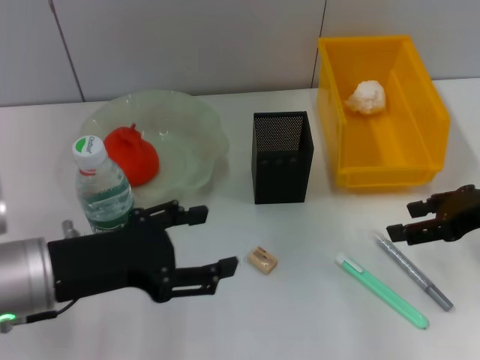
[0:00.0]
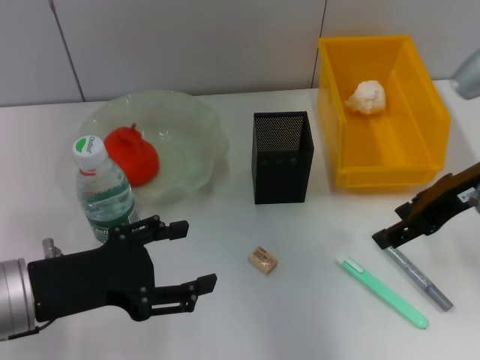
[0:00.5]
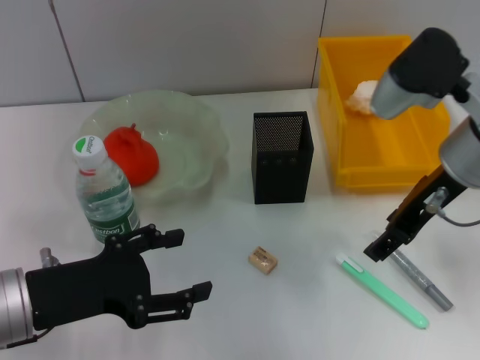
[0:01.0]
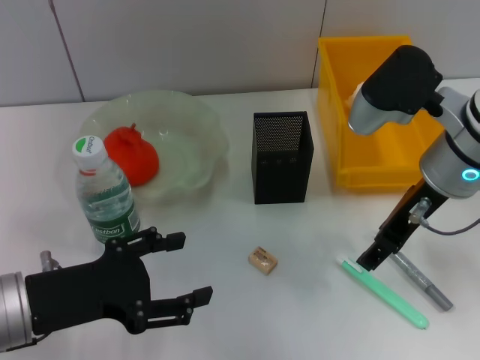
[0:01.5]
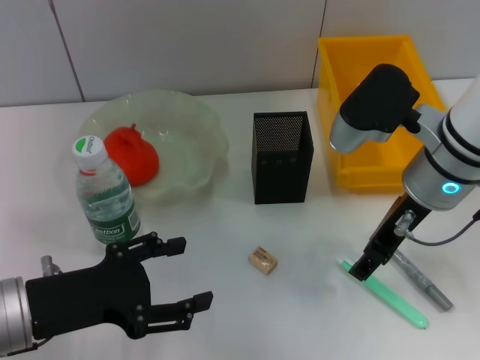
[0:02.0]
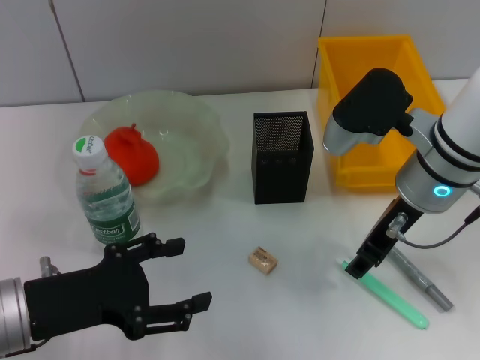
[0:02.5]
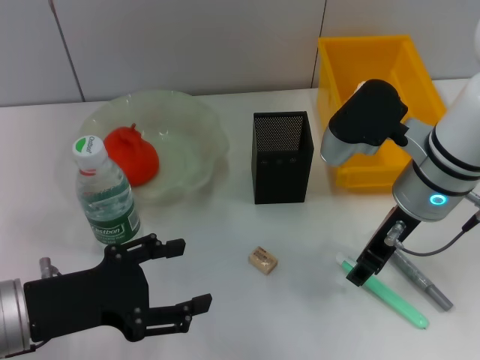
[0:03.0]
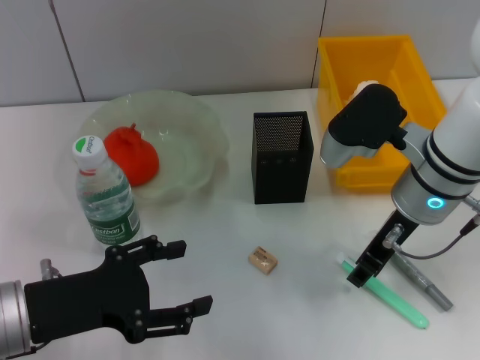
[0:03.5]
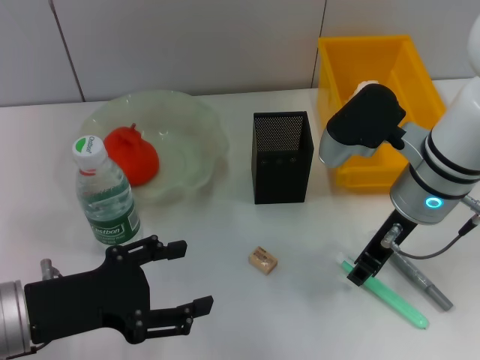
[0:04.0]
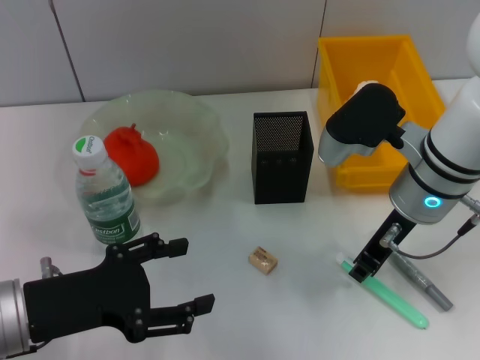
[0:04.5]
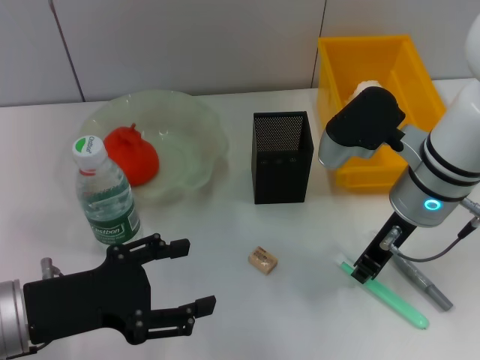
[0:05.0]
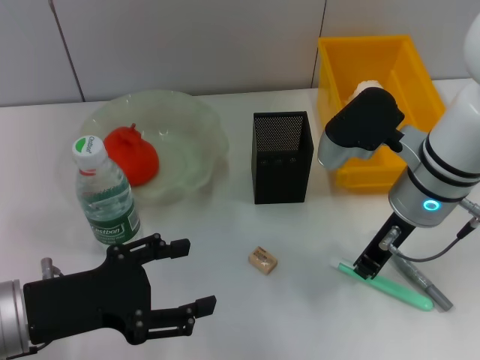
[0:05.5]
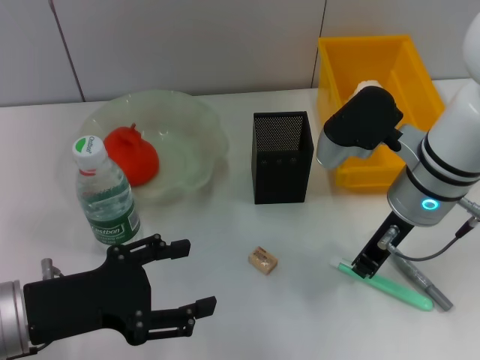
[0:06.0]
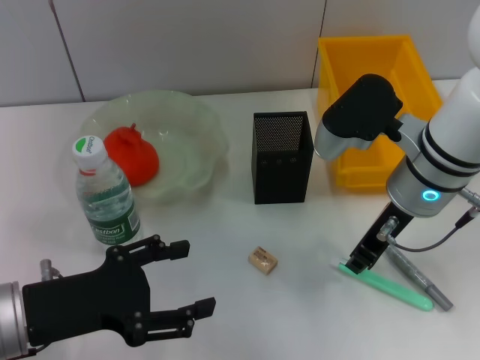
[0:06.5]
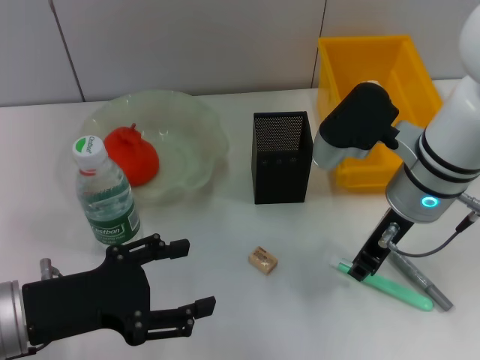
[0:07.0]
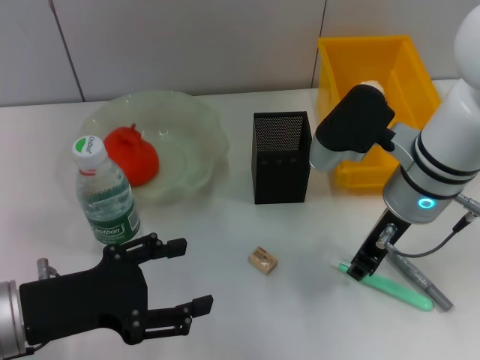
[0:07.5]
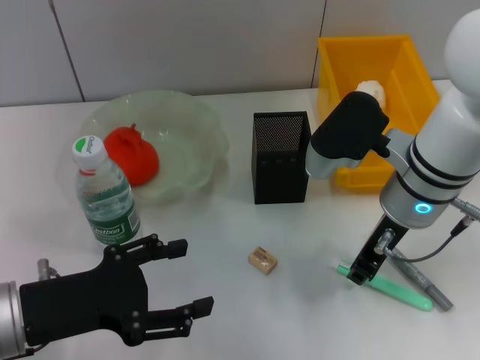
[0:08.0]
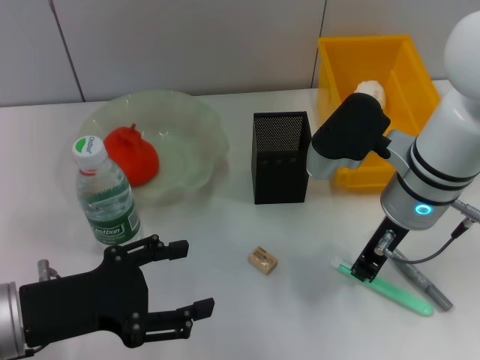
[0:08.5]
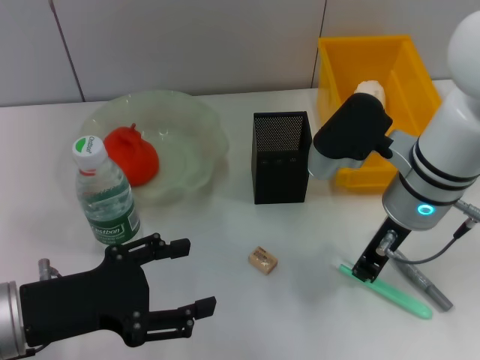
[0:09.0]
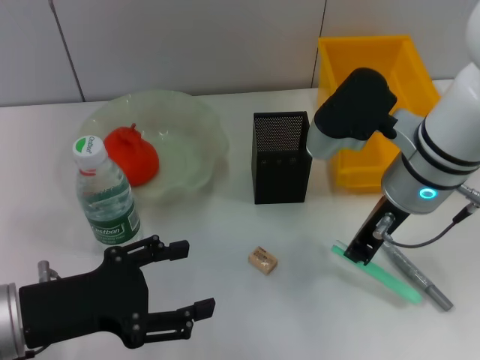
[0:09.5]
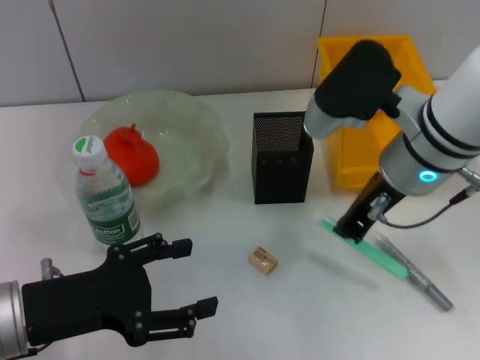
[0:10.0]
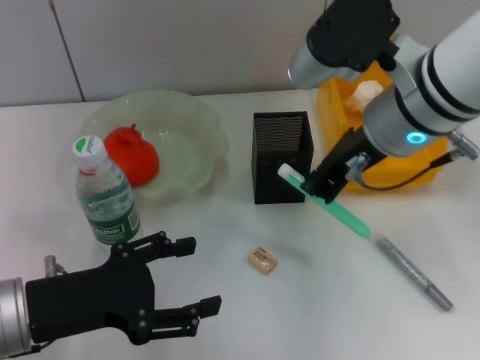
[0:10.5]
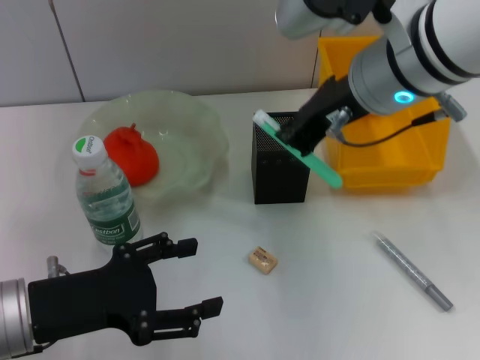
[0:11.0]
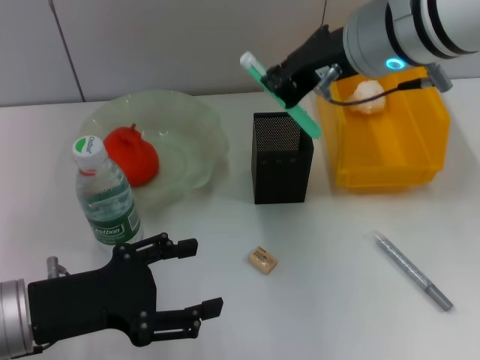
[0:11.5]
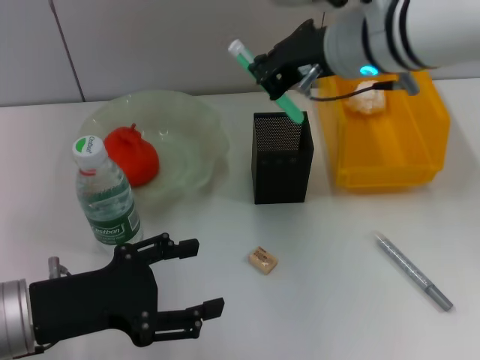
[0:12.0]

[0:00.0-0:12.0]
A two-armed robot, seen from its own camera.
Step, 0:00.0 to 0:08.5: Grab the blue utility knife with the right hand.
0:00.0 to 0:02.0: The right gripper moves to the left, some 15 cm.
0:02.0 to 0:04.0: The right gripper closes its fingers.
0:04.0 to 0:06.0: The right gripper closes its fingers.
0:06.0 to 0:10.0: The grippers make only small movements.
0:10.0 to 0:12.0: The right gripper goes some 5 cm upward.

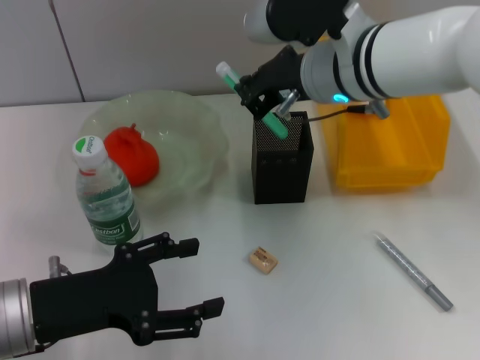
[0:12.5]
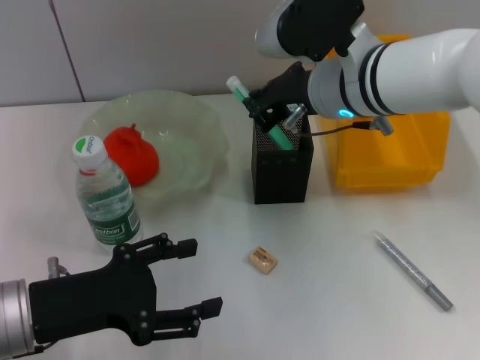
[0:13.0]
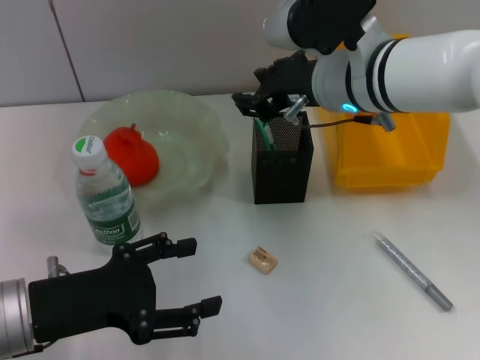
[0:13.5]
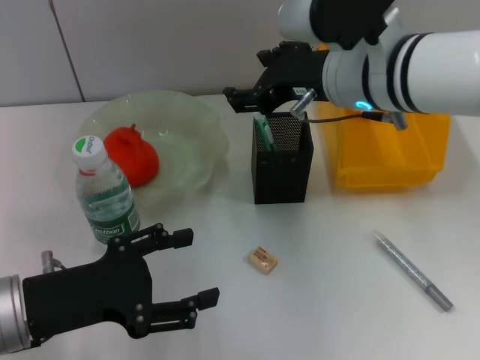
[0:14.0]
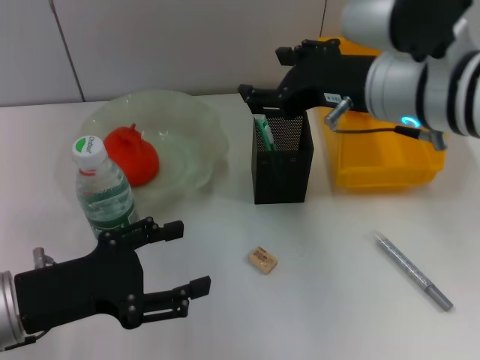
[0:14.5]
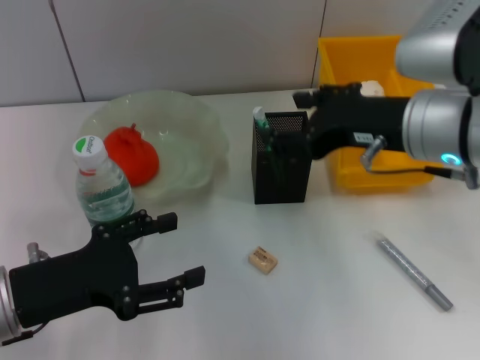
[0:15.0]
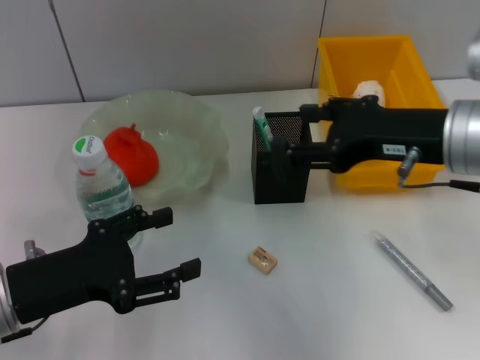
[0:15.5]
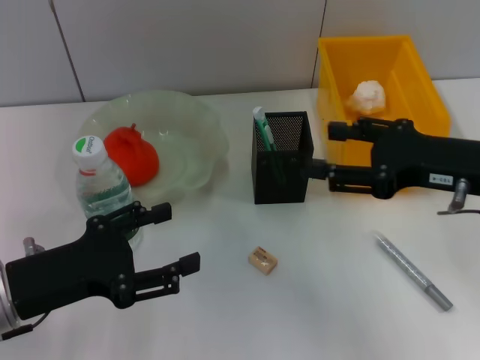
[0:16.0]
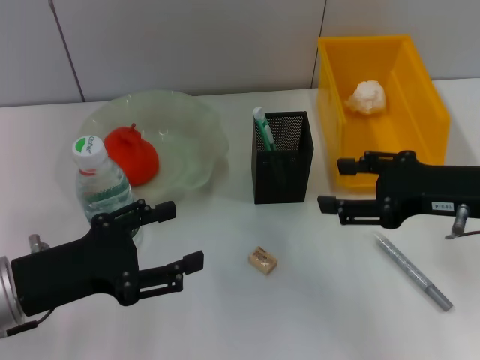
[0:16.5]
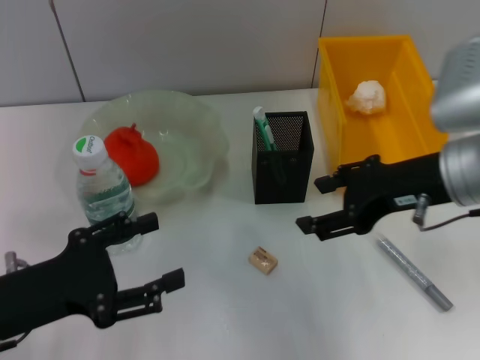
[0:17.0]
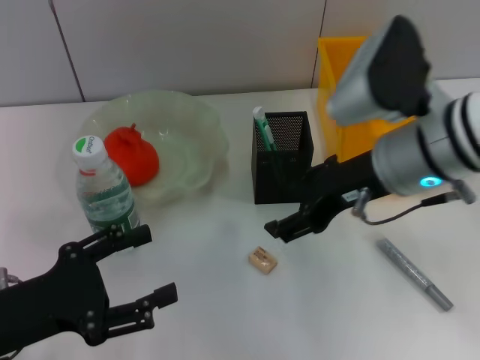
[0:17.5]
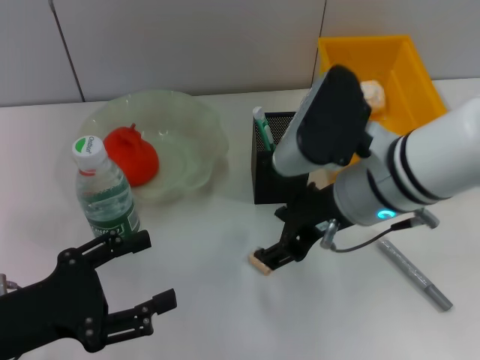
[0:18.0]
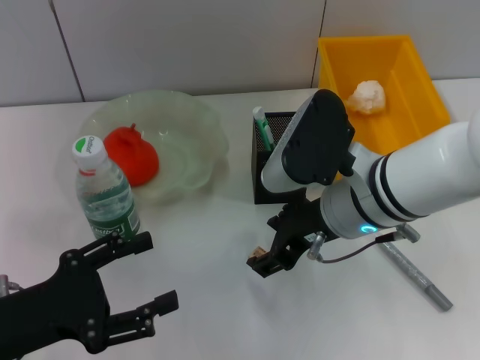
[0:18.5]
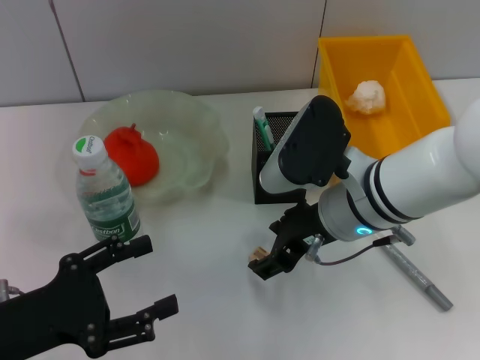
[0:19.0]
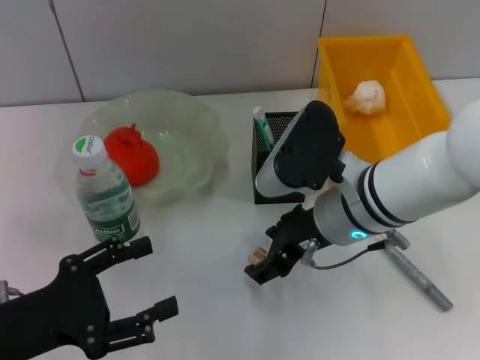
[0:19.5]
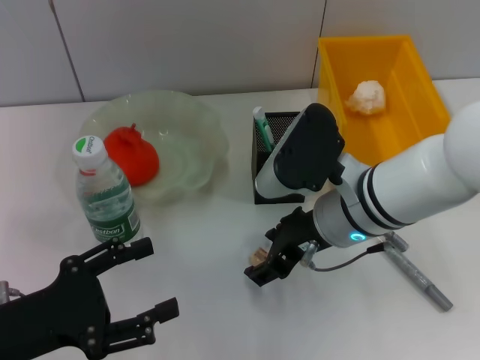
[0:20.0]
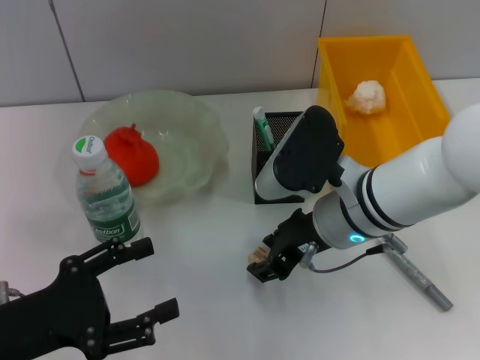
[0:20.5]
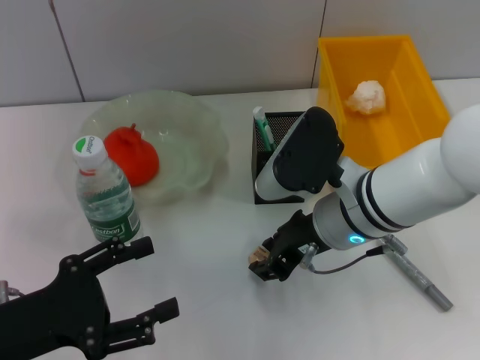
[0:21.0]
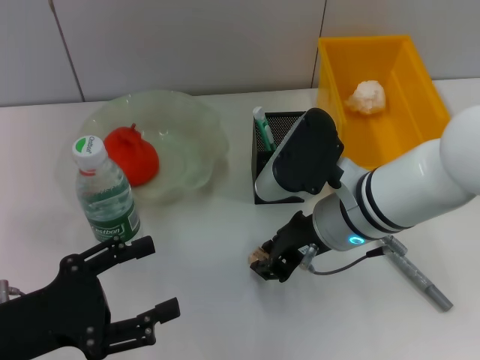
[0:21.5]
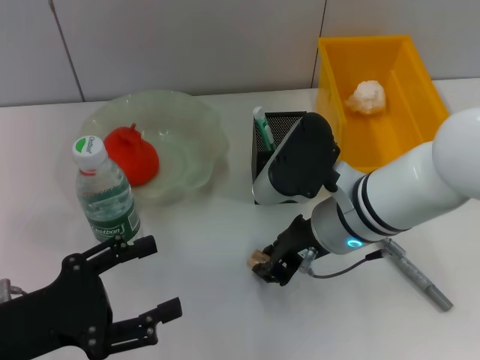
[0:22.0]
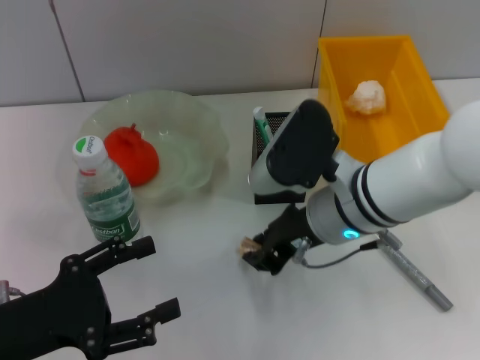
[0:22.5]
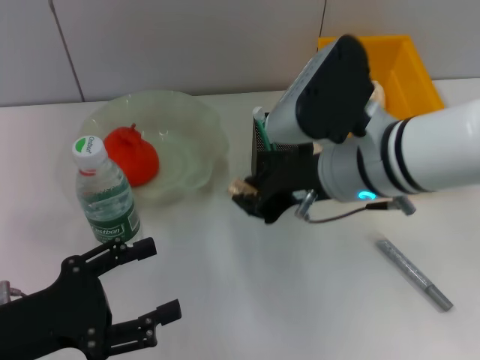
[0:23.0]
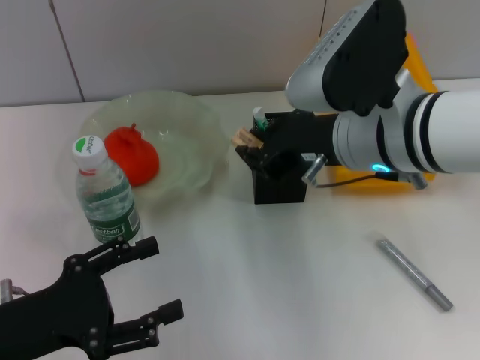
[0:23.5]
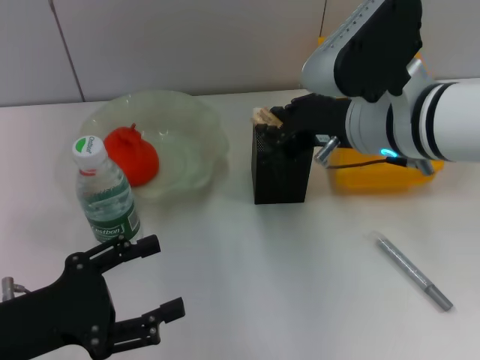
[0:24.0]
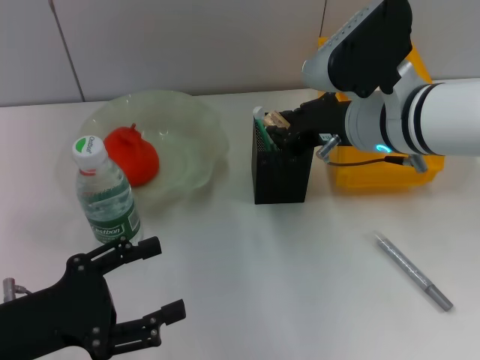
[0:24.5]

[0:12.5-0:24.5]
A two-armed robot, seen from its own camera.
Step, 0:13.5 to 0:22.0: Grab the eraser with the right hand.
0:12.5 to 0:14.5: The right gripper goes about 5 cm backward, and opens.
0:14.5 to 0:16.5: The right gripper moves to the right and downward, about 15 cm.
0:16.5 to 0:18.5: The right gripper is displaced to the left by some 15 cm.
0:18.5 to 0:20.5: There are only small adjustments of the grippers.
0:20.5 to 0:22.5: The right gripper closes its fingers.
0:22.5 to 0:24.5: The right gripper changes place by roughly 5 cm.

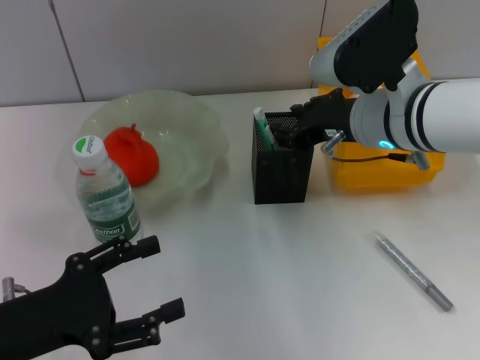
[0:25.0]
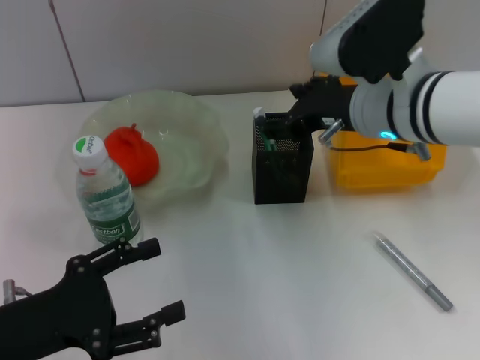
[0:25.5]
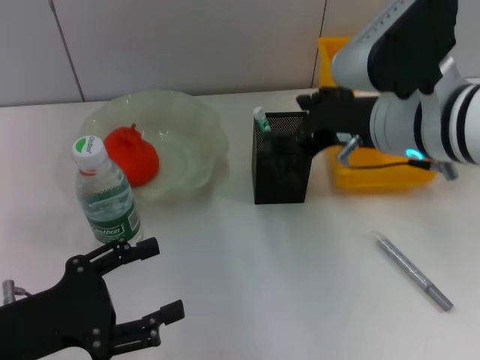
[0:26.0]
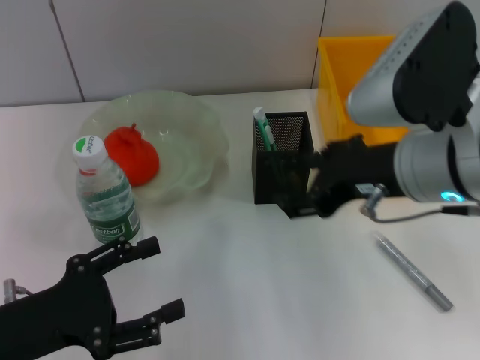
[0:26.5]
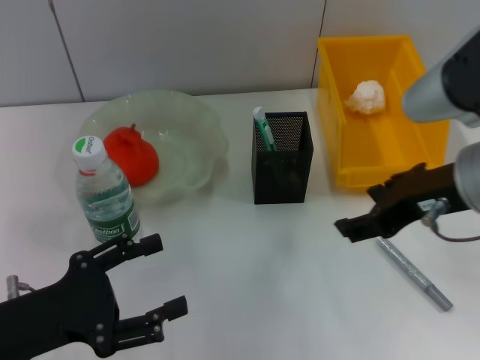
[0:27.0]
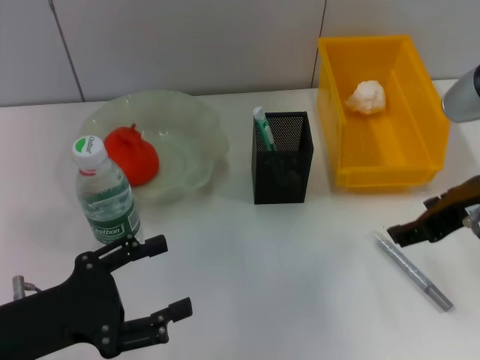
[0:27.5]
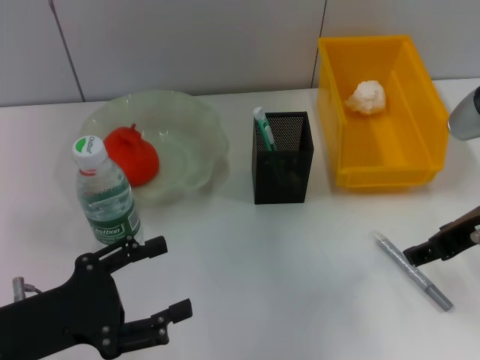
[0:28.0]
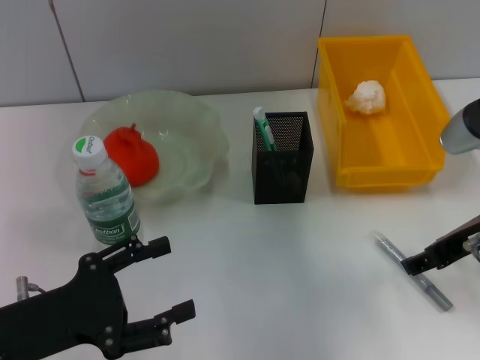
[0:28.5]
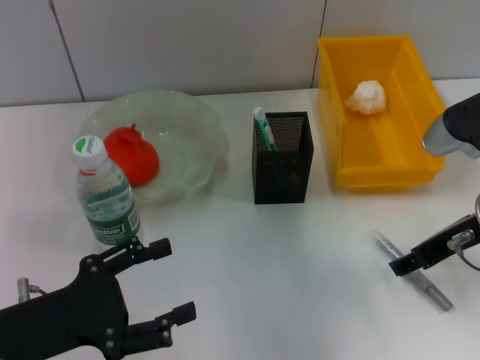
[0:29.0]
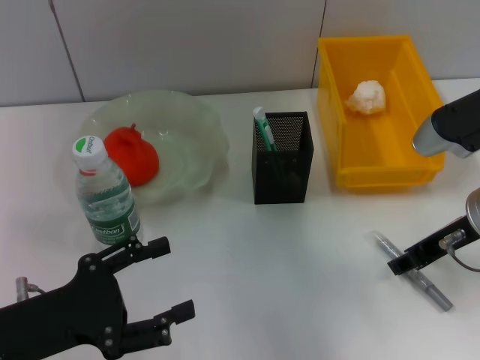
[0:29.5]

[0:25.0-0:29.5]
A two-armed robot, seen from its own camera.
0:25.0 to 0:27.0: The right gripper heads backward, covering approximately 10 cm, and opens.
0:27.0 to 0:29.5: The right gripper goes approximately 10 cm downward.
